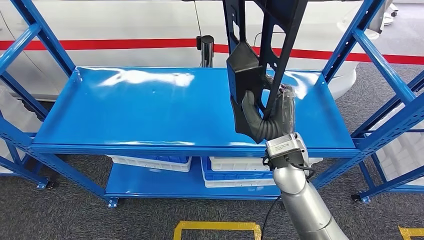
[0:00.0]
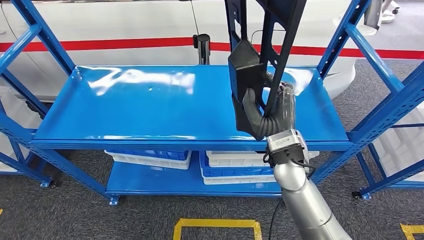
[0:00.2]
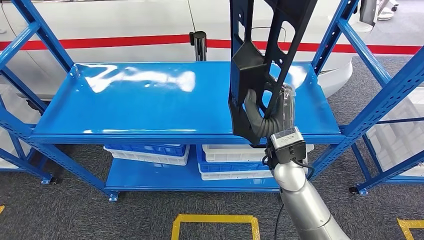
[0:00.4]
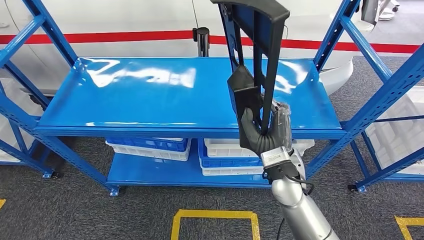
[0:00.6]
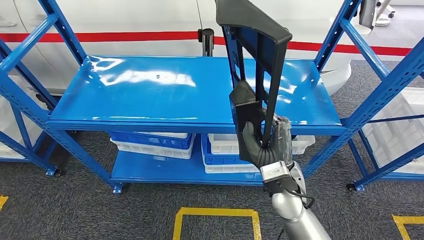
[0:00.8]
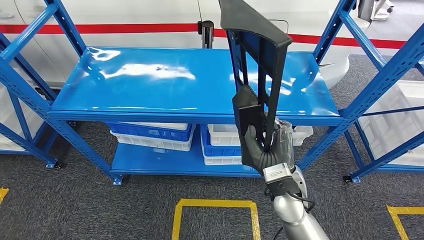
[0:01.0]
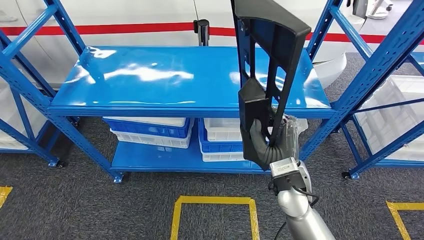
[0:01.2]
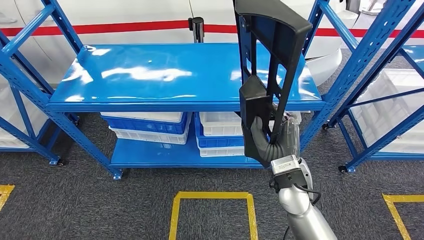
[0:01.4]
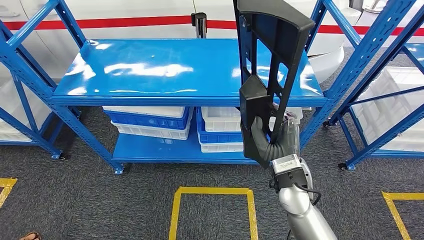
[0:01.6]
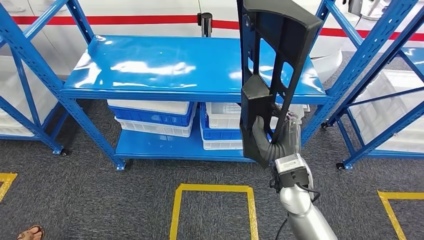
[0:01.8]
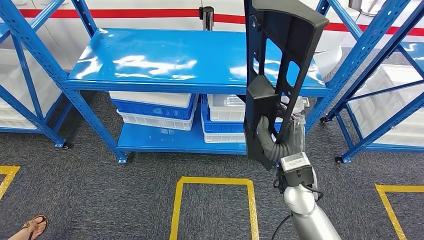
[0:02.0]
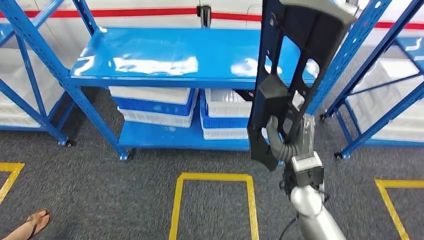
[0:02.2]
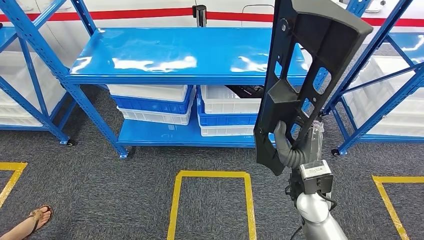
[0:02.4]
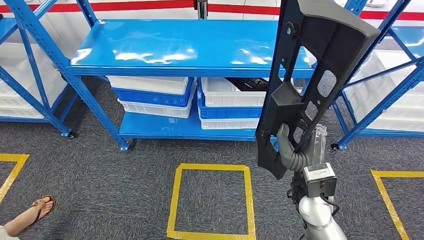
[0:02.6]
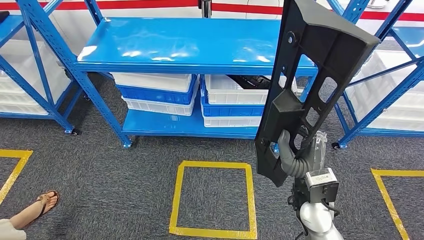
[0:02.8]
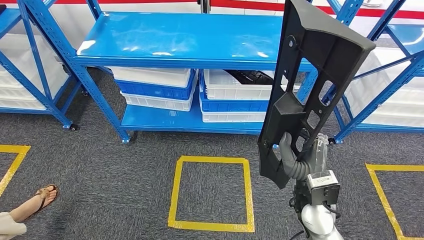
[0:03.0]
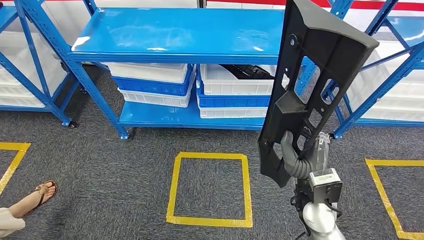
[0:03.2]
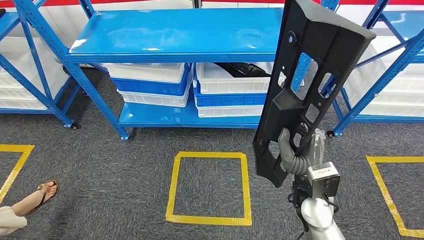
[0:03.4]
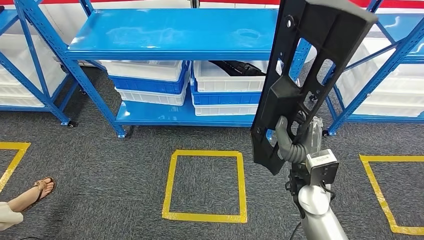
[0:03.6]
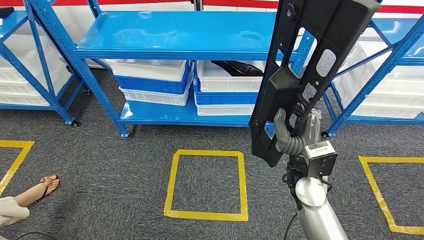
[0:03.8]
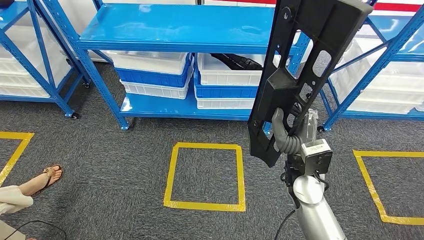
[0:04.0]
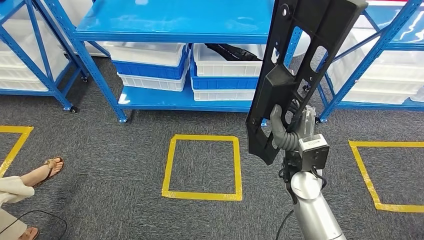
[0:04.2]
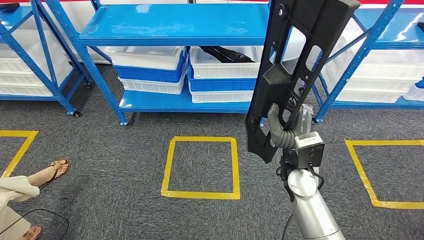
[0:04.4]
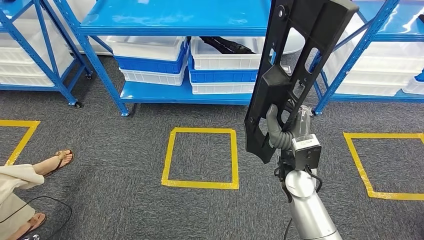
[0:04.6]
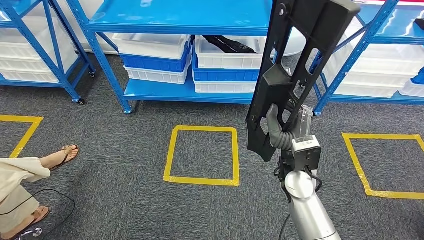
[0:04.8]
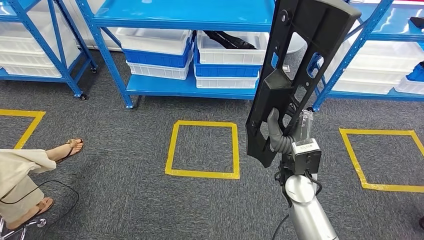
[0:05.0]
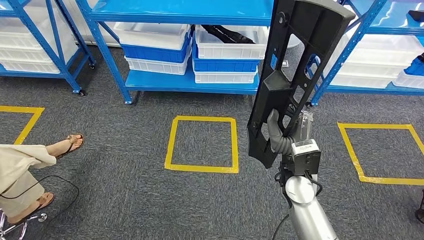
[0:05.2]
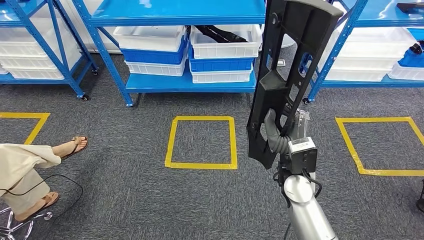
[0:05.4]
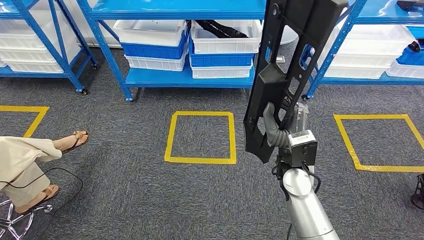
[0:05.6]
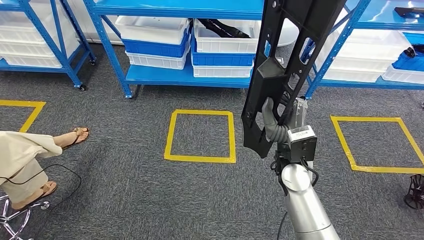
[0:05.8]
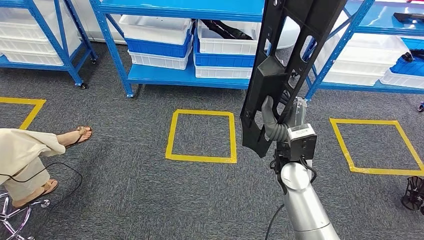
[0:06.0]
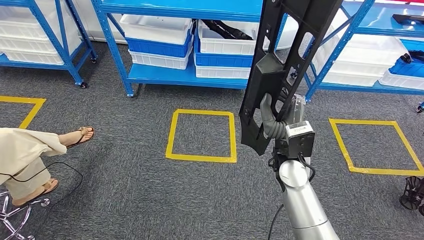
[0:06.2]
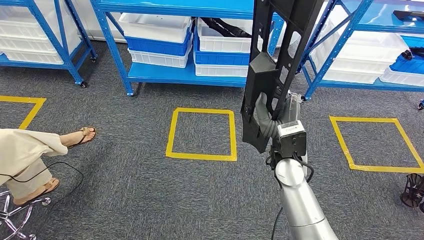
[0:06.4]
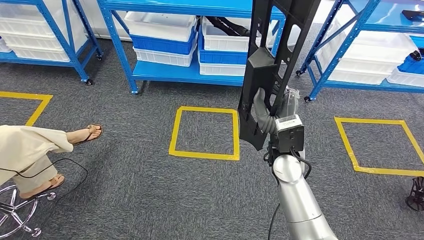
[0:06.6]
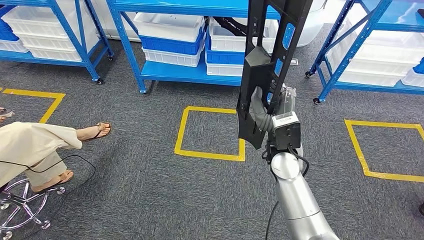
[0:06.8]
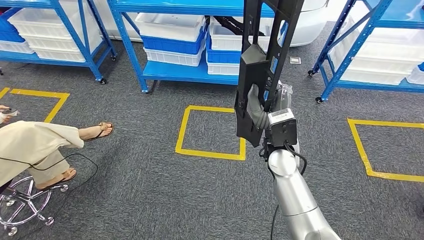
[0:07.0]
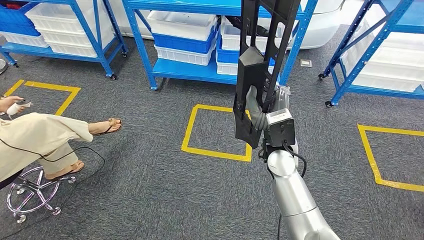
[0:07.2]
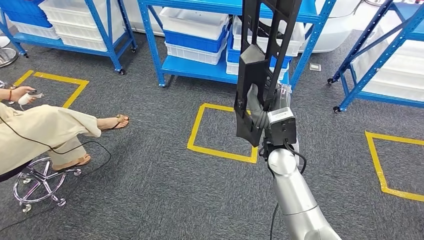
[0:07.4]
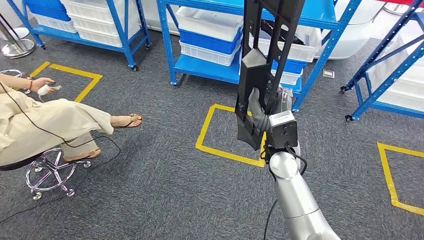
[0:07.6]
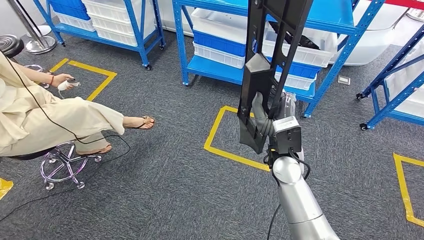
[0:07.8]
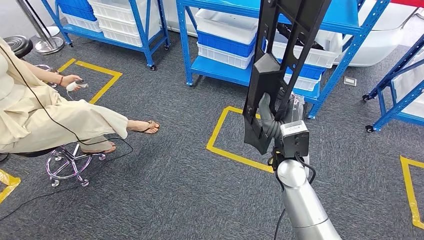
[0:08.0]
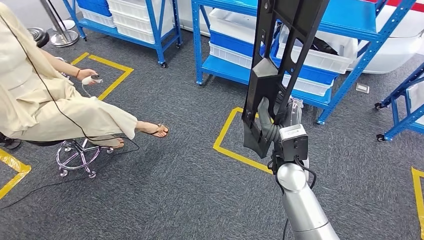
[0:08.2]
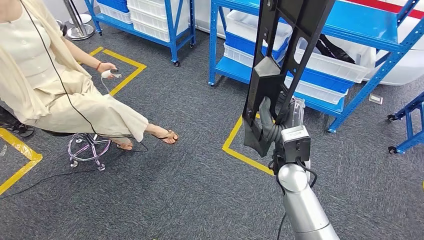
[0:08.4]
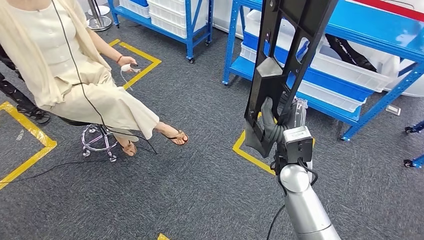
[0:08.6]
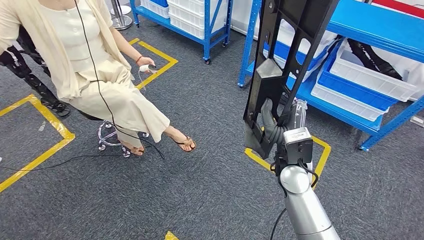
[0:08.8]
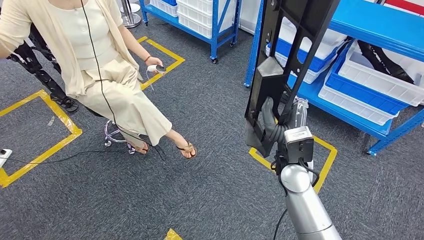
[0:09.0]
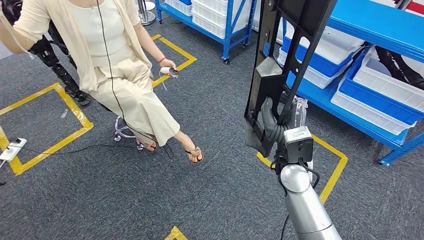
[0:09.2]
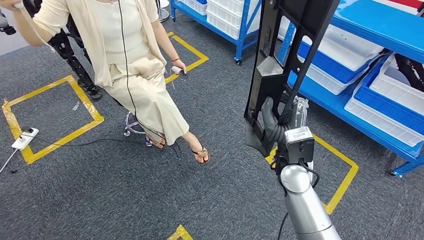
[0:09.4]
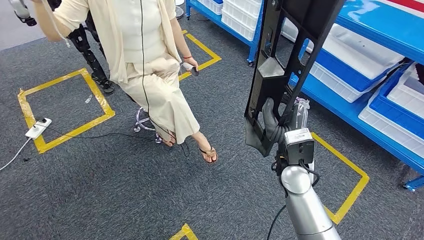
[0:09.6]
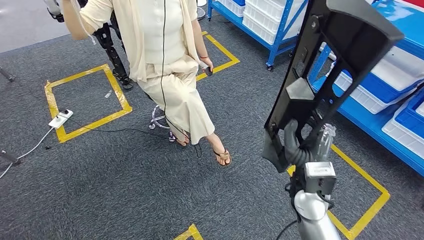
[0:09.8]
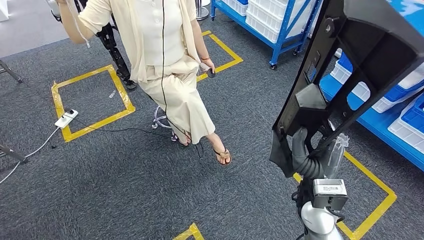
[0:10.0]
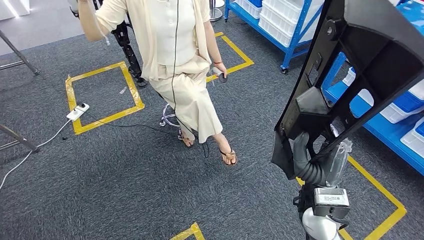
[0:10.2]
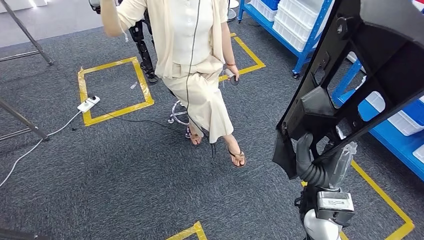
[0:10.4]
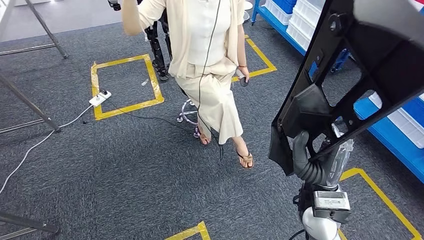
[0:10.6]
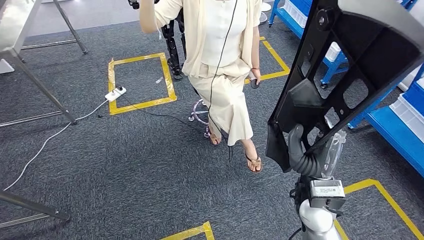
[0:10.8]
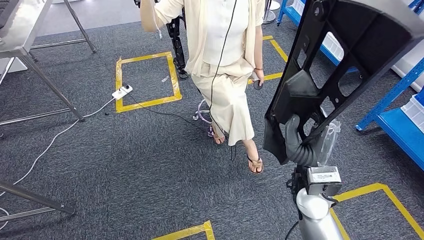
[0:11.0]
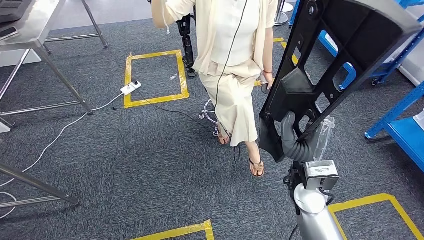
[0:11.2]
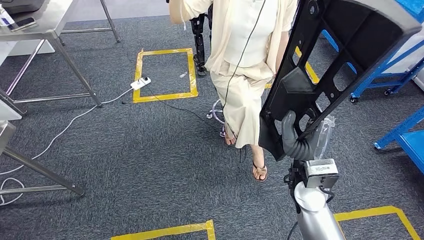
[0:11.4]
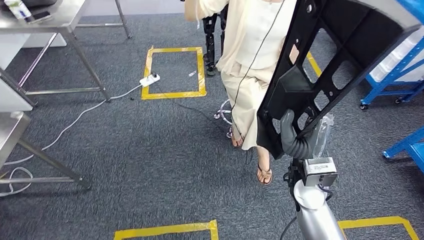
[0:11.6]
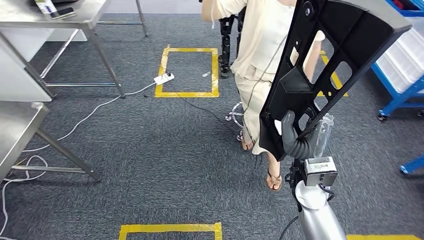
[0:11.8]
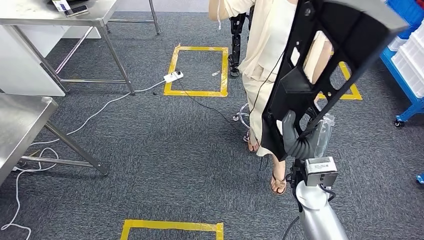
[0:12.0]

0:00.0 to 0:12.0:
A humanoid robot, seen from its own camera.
Step, 0:00.0 to 0:02.4: Pick up the large material from the shelf.

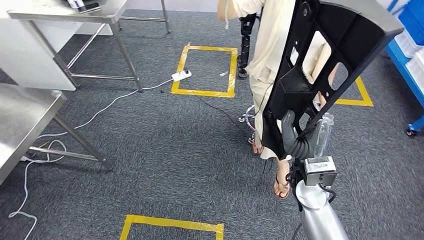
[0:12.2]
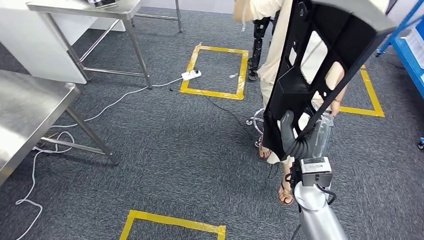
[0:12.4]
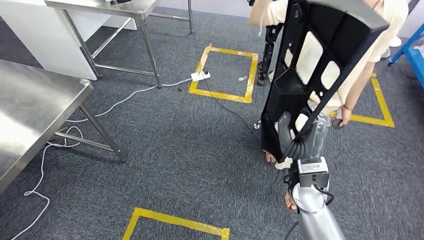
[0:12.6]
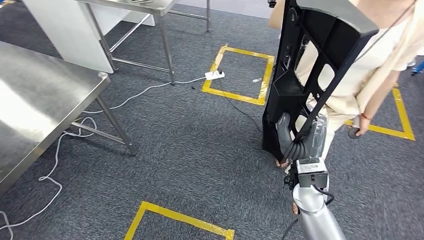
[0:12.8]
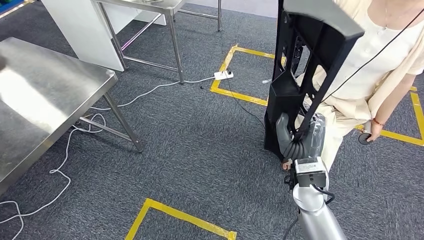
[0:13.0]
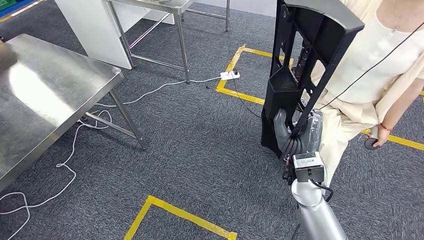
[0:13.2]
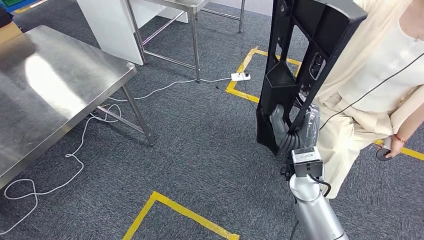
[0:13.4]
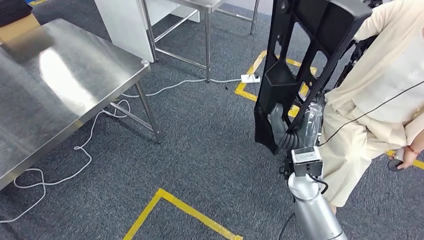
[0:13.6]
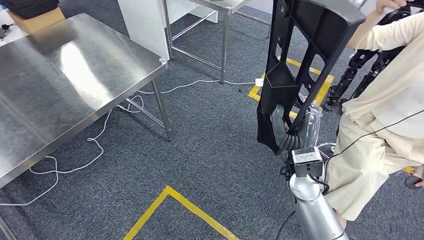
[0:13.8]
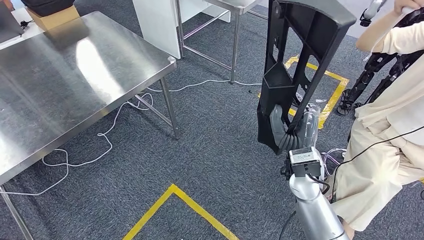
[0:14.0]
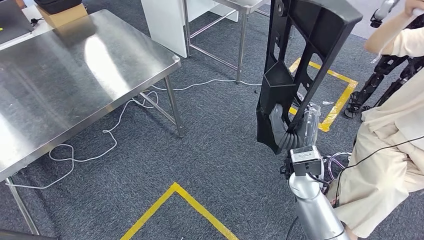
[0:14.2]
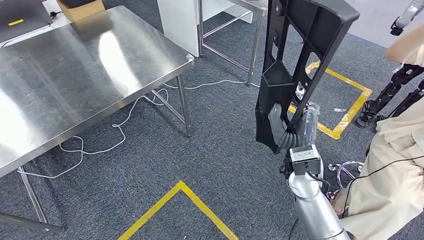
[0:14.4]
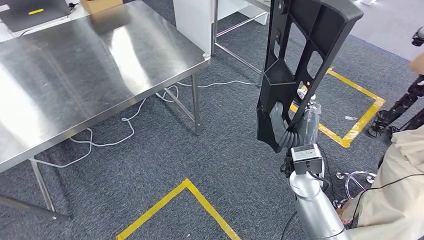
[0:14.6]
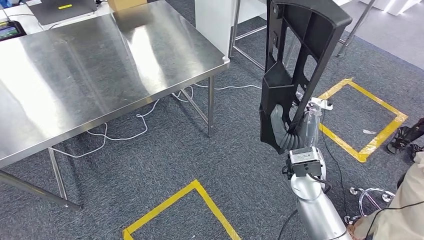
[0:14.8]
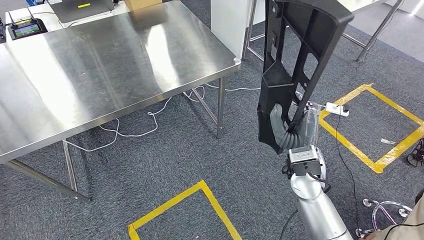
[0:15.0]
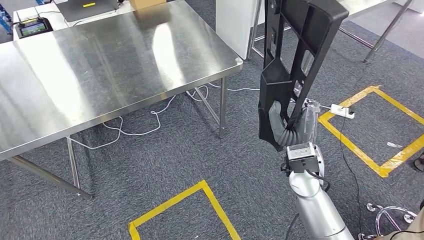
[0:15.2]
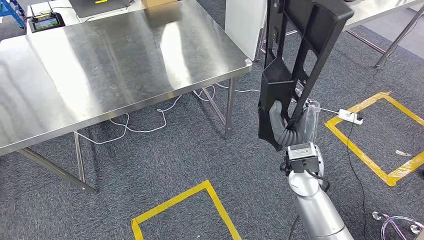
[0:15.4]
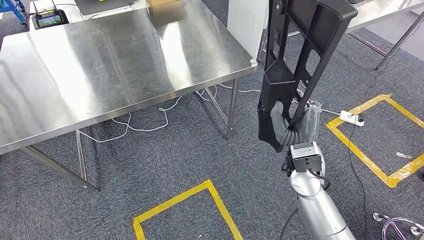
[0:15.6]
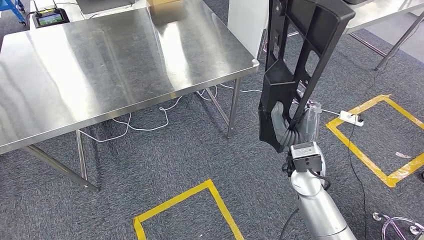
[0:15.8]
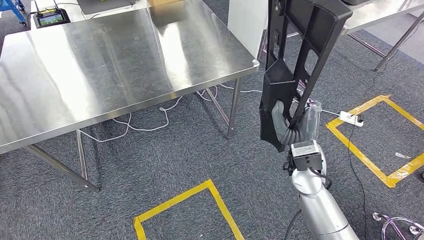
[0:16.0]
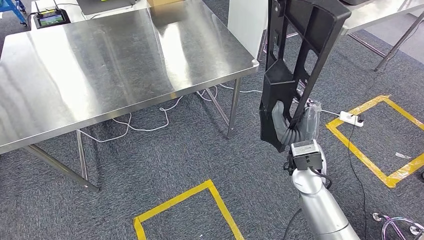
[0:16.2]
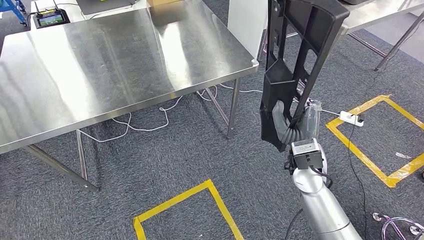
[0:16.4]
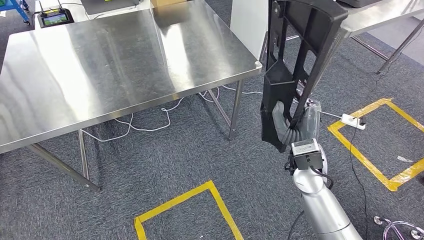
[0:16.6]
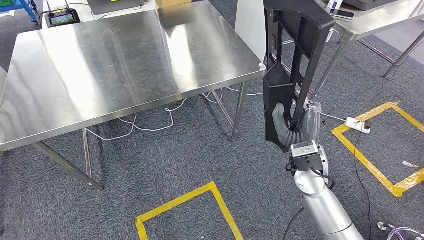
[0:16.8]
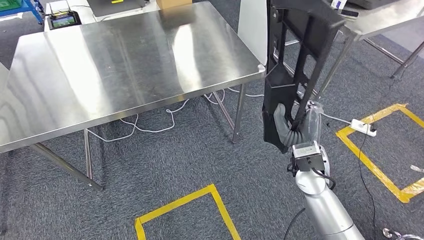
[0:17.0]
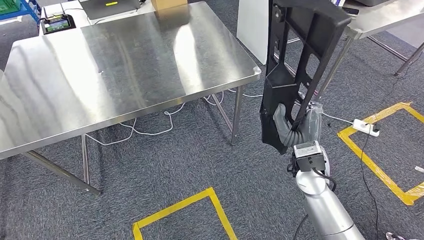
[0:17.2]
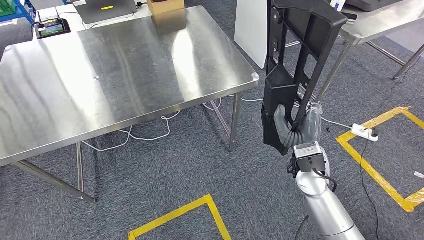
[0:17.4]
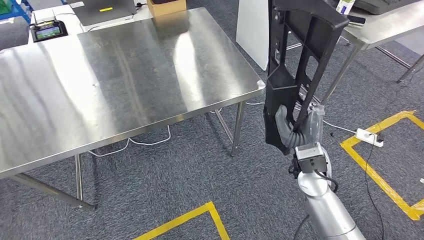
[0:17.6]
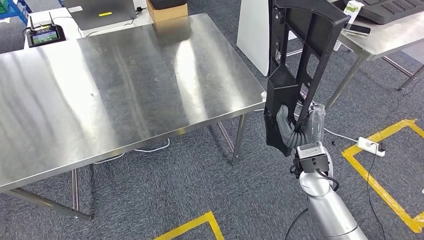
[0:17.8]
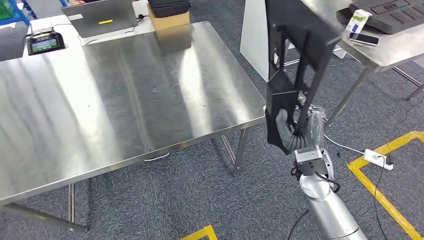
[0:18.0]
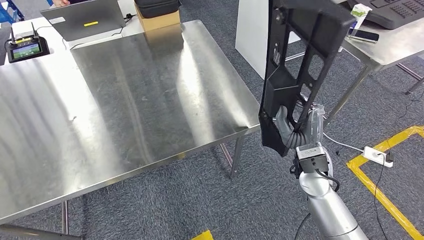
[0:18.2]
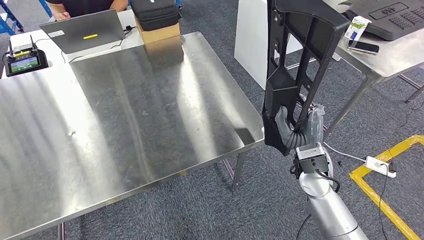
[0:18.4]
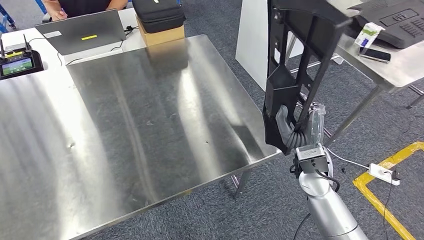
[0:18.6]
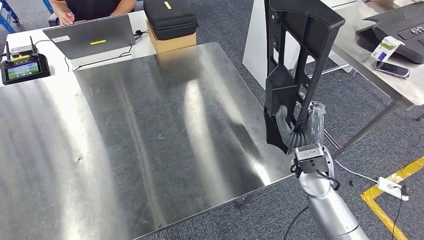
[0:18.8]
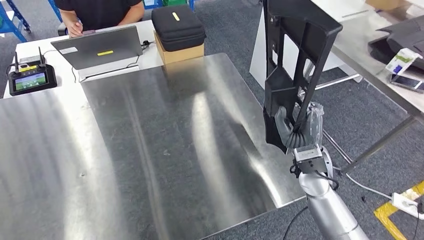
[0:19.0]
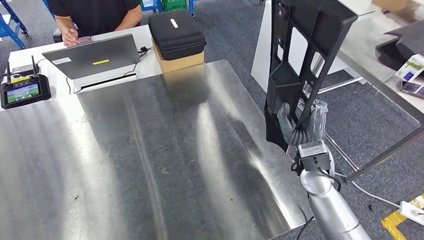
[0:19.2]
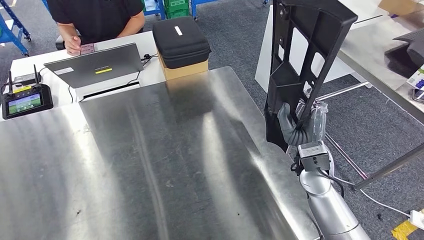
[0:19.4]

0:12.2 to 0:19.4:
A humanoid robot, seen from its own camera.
Step, 0:12.2 to 0:19.2: Move the large material to the workbench.
